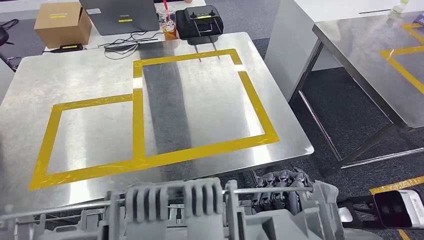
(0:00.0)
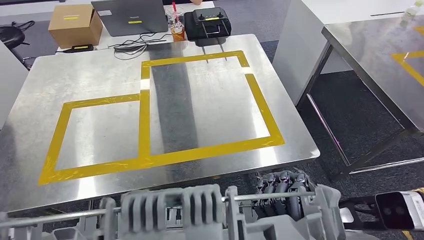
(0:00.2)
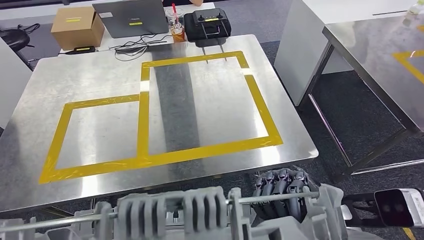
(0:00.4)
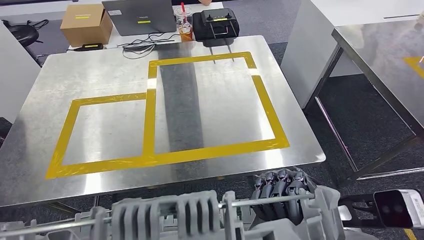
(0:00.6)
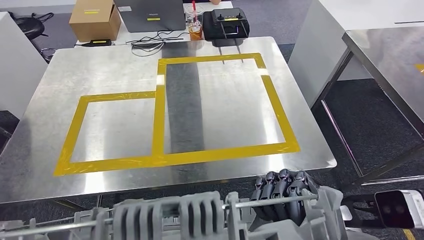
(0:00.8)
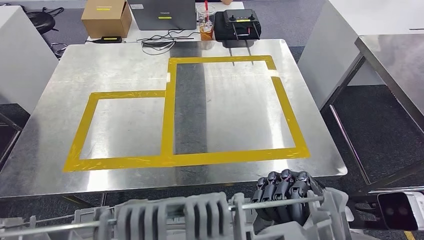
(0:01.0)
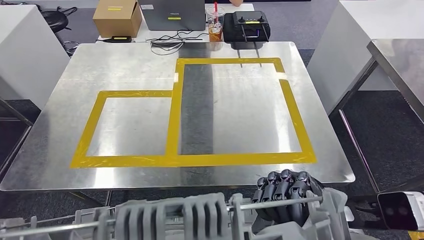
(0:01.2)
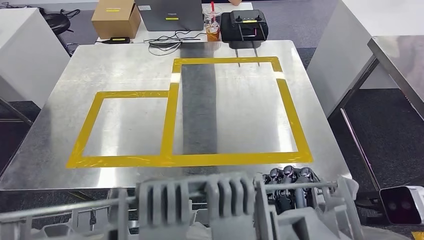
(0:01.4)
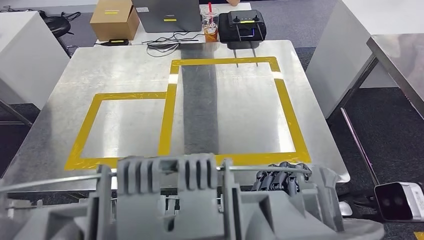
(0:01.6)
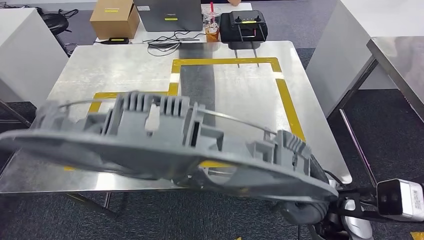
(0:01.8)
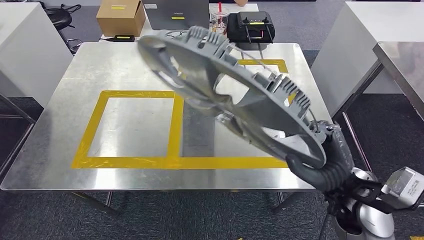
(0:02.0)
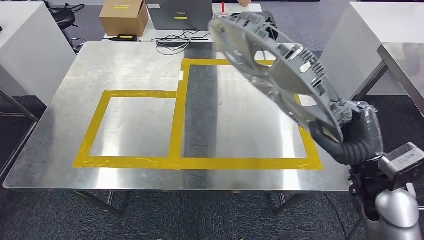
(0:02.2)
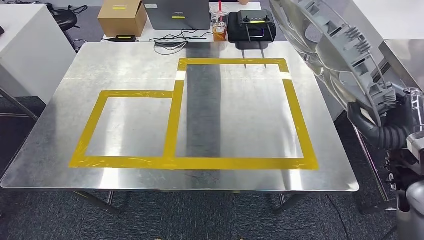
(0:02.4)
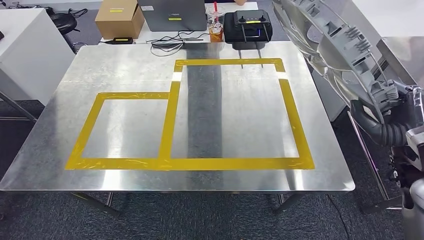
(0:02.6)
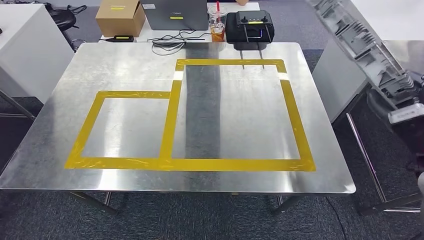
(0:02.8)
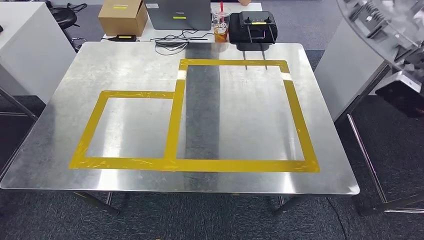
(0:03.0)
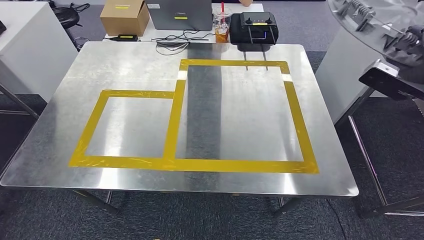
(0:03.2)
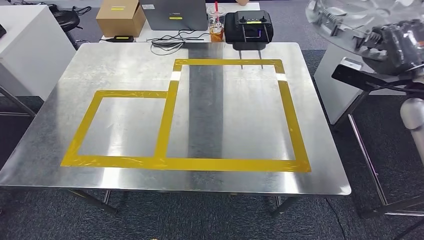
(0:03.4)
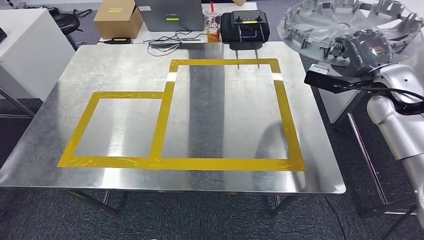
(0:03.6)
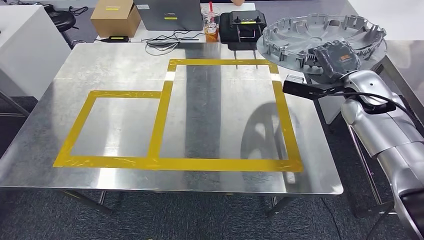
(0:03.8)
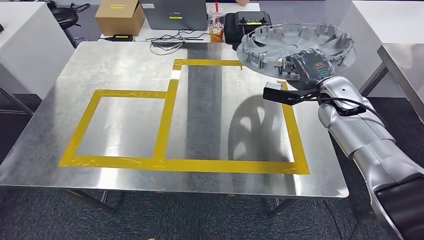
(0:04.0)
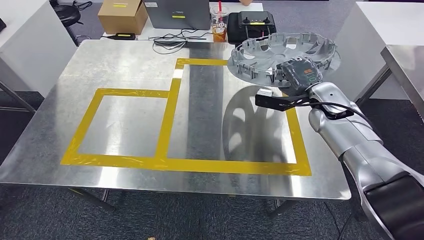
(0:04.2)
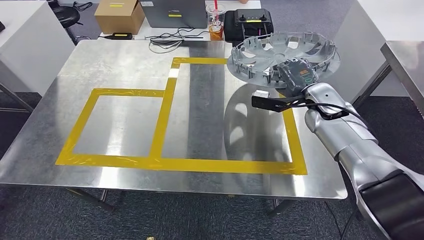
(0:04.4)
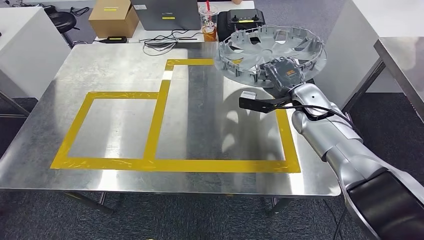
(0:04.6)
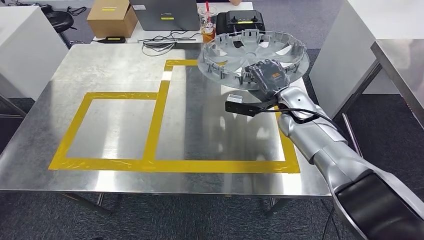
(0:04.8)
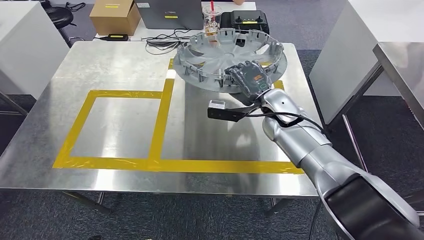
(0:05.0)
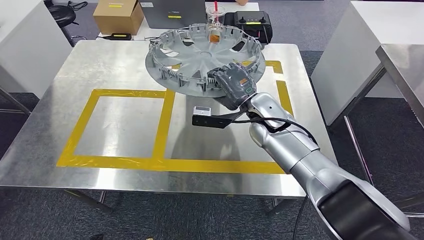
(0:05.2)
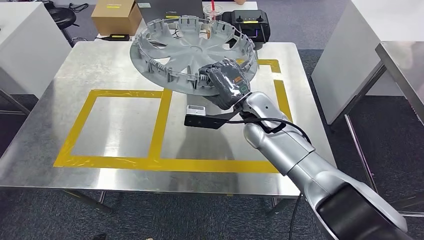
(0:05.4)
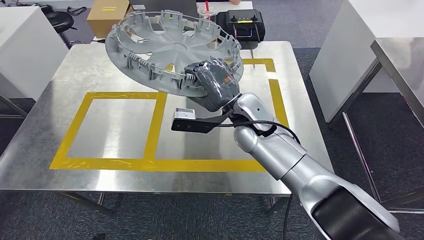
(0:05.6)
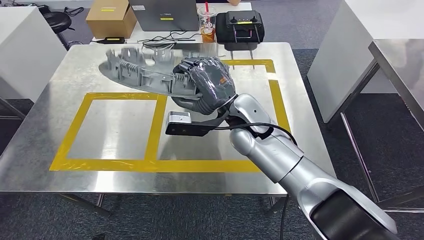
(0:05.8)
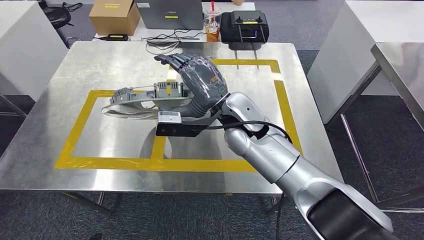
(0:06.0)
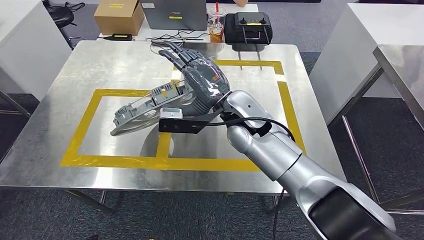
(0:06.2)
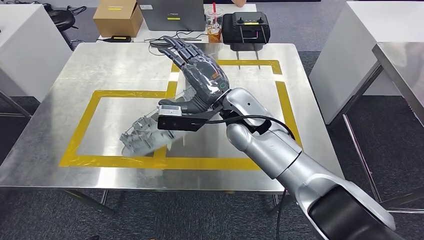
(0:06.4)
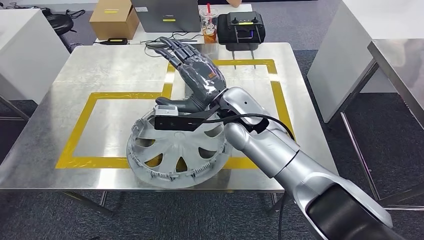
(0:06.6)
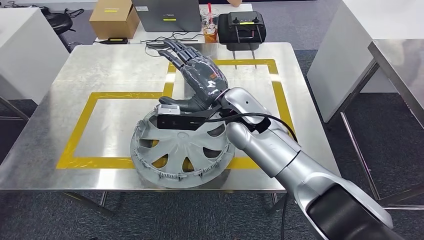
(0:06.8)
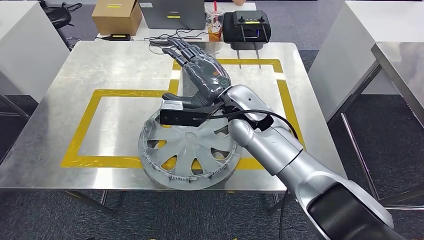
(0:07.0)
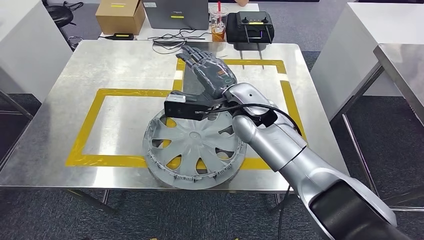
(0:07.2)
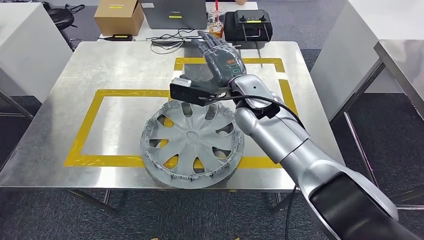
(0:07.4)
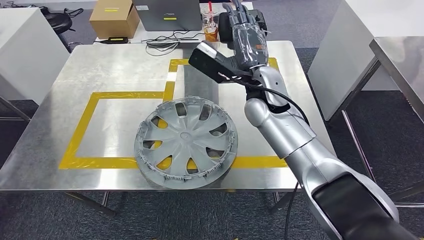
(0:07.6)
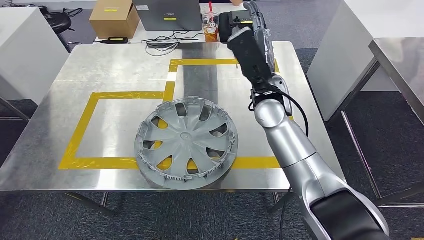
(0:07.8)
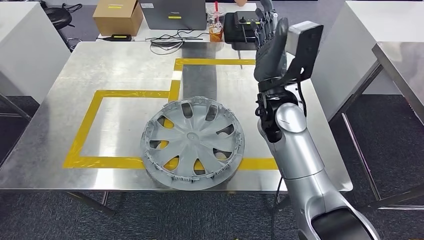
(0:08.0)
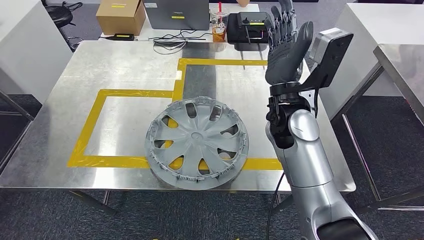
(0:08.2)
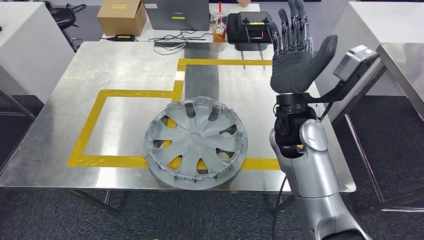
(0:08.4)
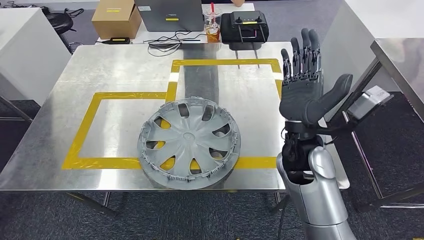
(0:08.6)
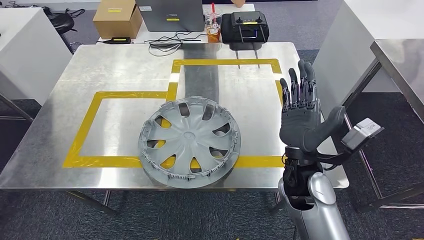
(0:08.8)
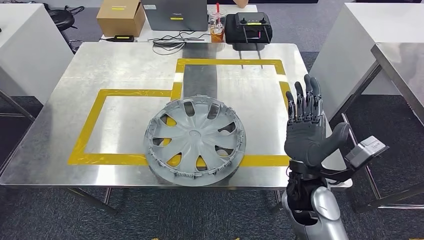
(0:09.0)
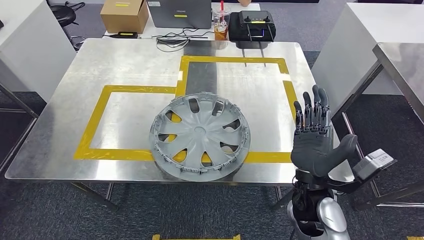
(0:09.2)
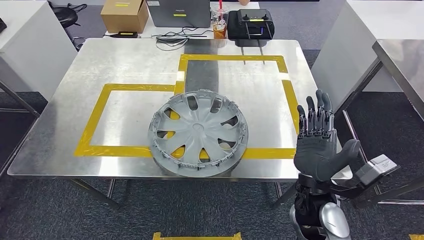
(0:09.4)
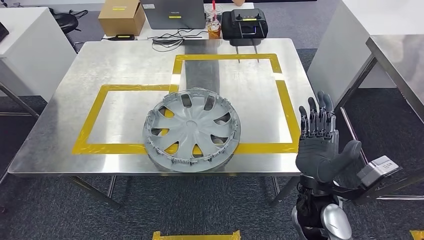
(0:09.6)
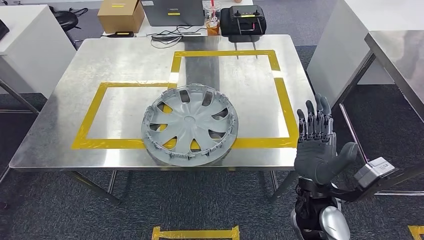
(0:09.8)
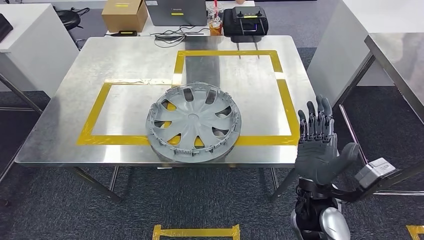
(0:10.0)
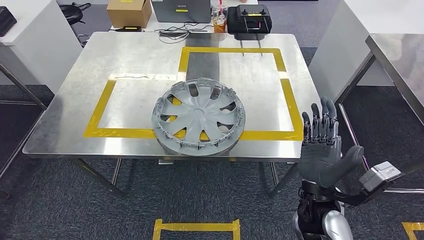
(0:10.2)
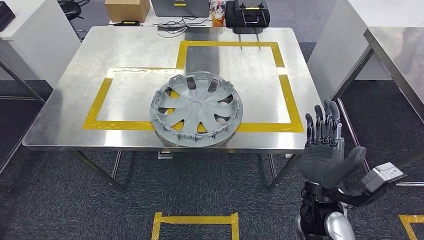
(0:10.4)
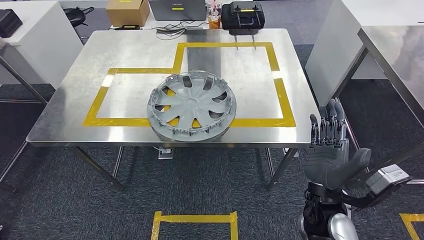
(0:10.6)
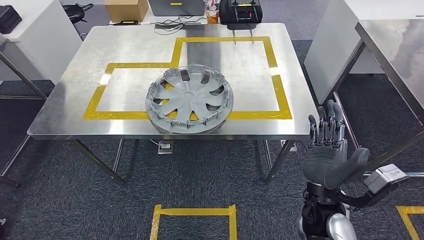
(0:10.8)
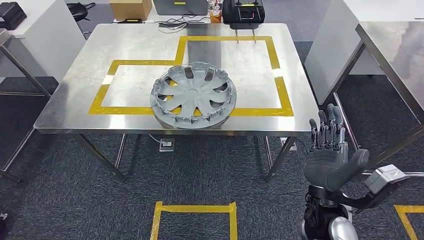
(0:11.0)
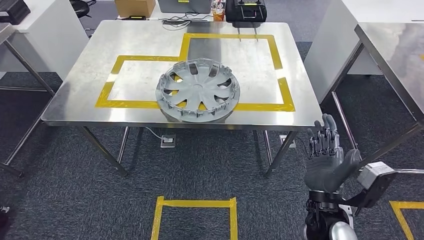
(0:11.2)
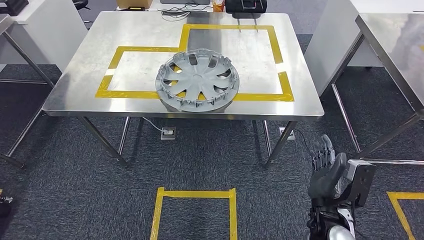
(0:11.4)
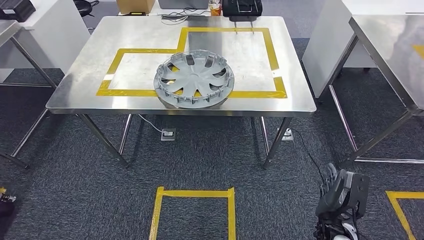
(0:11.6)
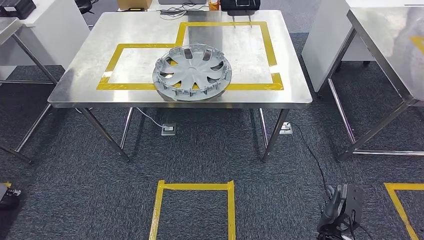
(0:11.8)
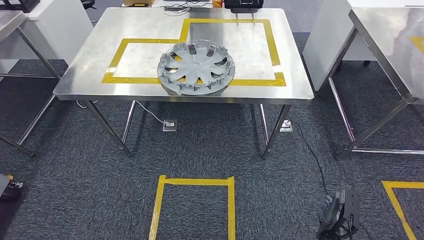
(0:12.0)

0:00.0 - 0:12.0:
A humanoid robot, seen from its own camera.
Step, 0:00.0 - 0:09.0: Insert the small parts into the corresponding holes on the workbench.

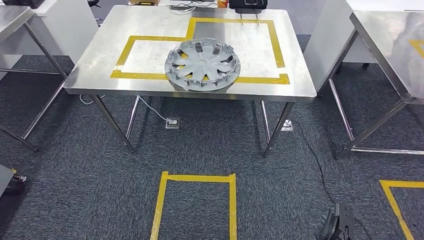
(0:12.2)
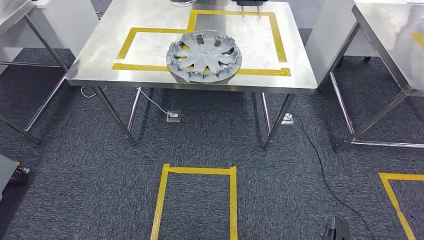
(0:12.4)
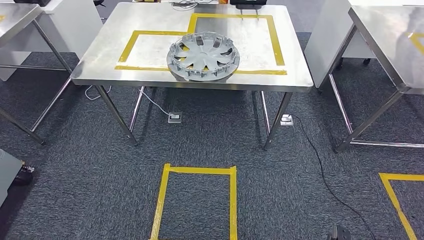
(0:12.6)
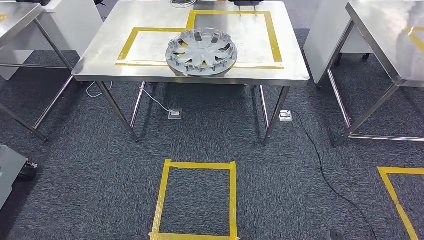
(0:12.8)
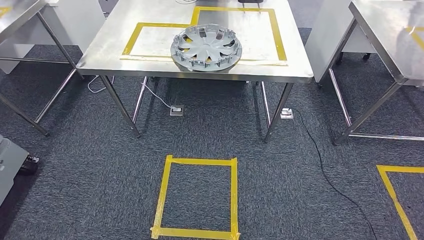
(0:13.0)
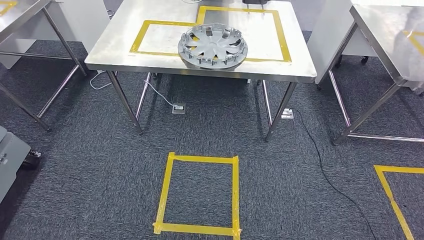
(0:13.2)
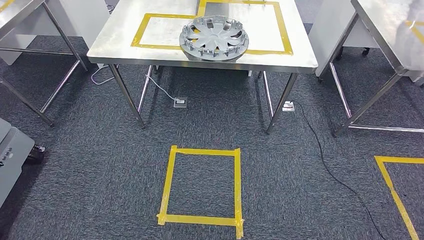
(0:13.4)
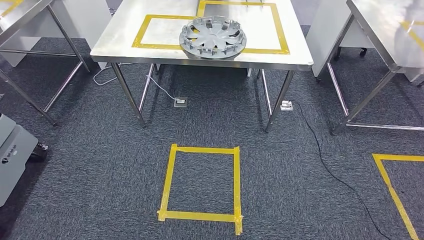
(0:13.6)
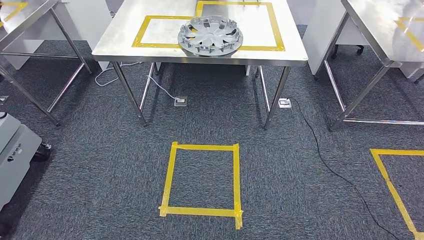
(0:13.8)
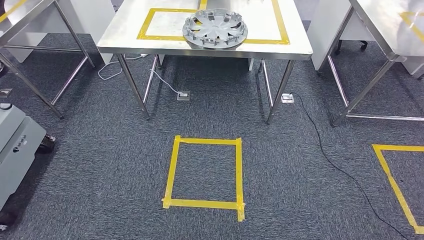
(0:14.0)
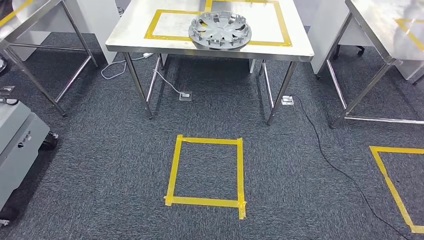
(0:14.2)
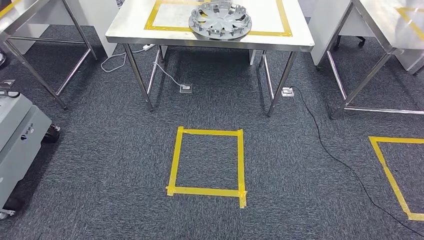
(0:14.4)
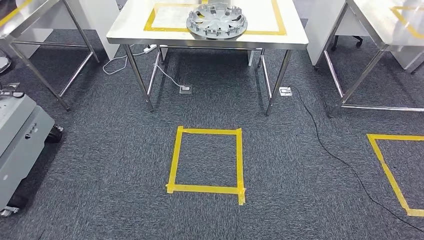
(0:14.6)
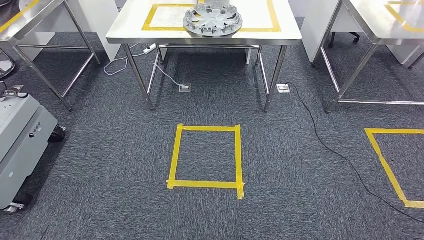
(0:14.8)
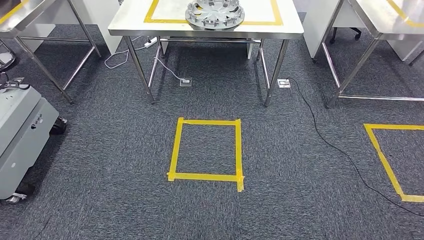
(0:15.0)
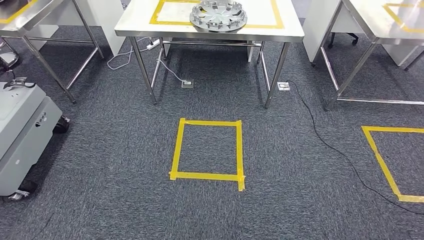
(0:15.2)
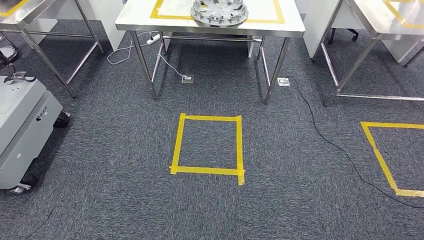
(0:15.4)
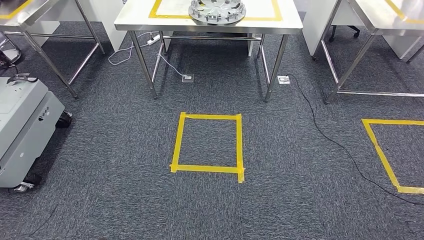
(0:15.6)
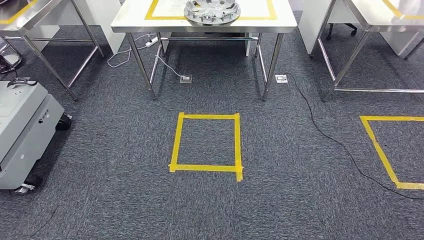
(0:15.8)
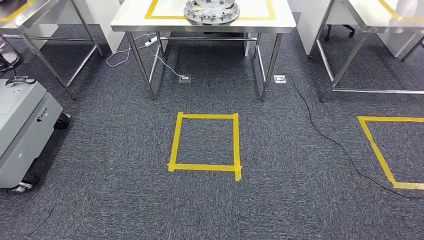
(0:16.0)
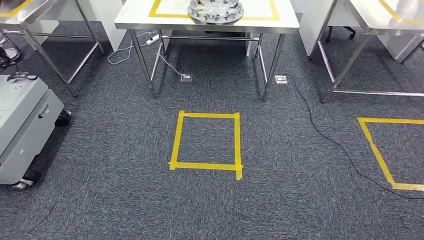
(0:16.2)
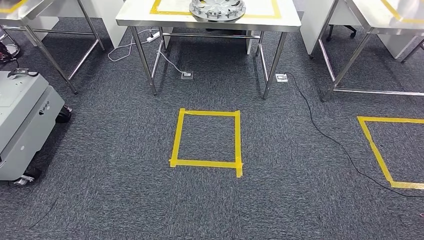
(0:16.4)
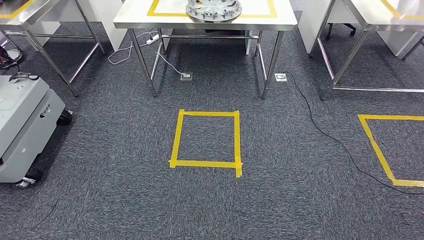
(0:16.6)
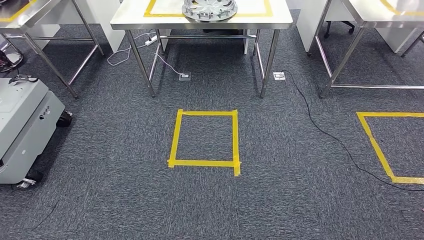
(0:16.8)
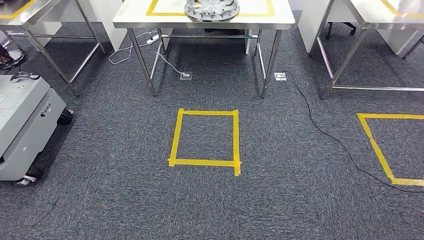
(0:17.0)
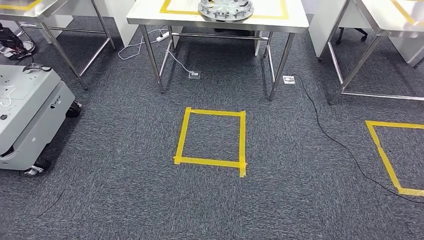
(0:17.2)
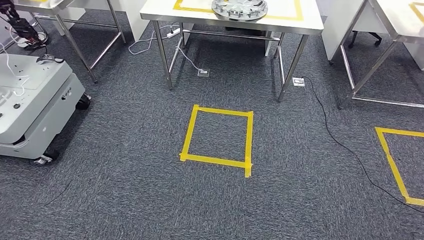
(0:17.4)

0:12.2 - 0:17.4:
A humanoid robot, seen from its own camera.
Step, 0:12.2 - 0:17.4: Move to the initial position of the workbench.
